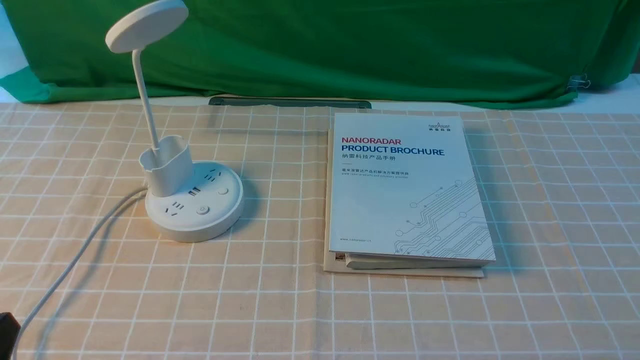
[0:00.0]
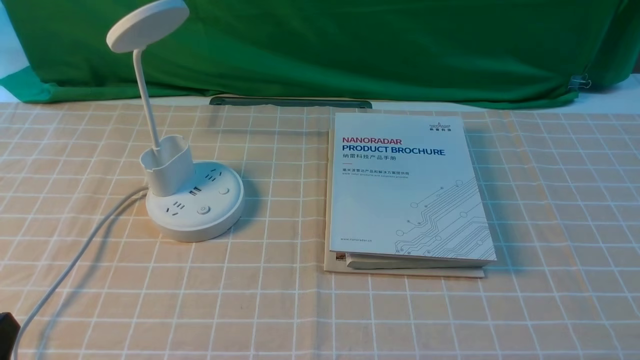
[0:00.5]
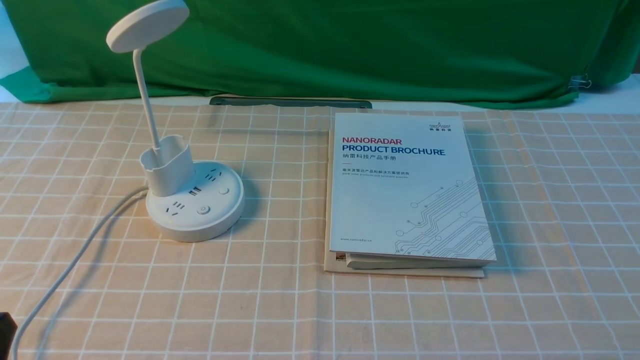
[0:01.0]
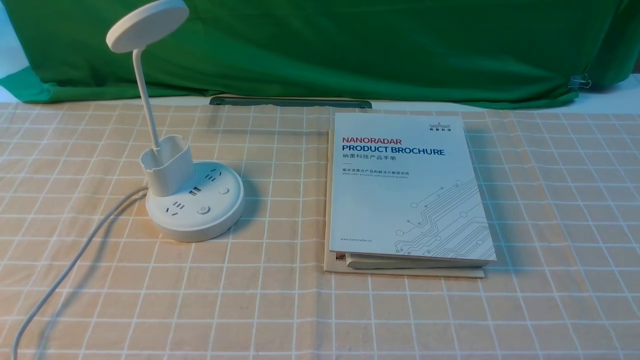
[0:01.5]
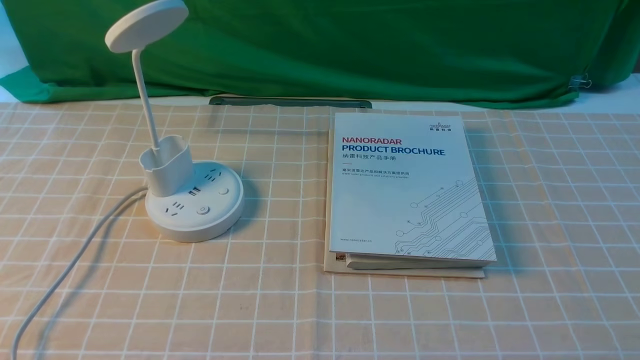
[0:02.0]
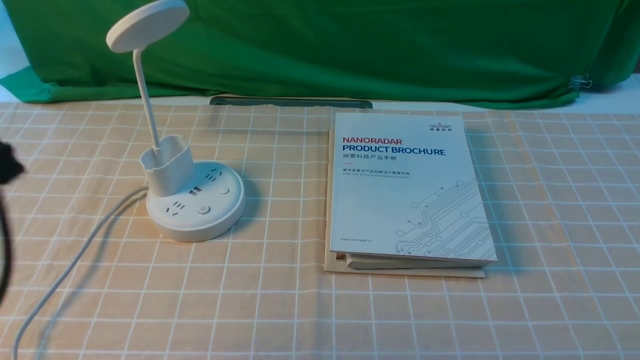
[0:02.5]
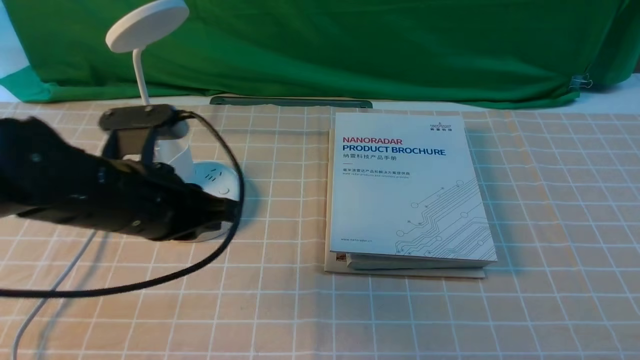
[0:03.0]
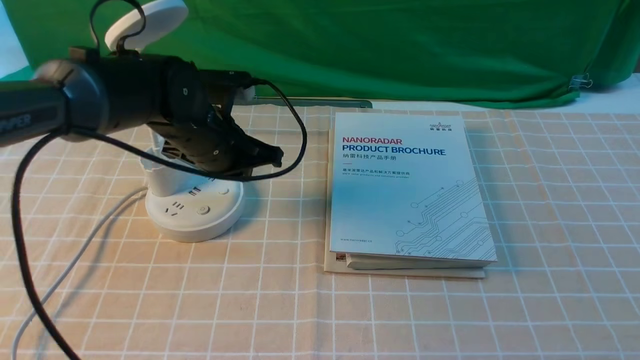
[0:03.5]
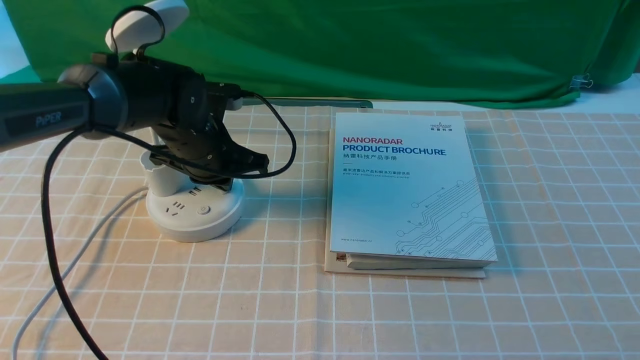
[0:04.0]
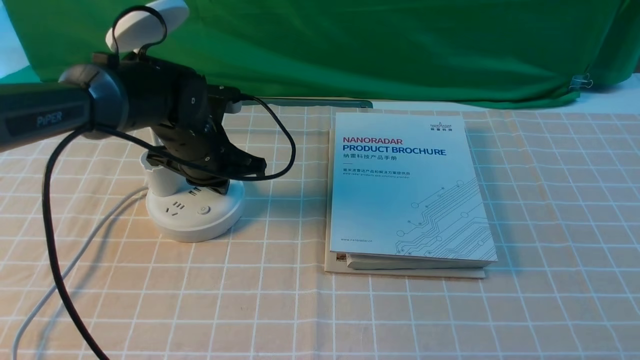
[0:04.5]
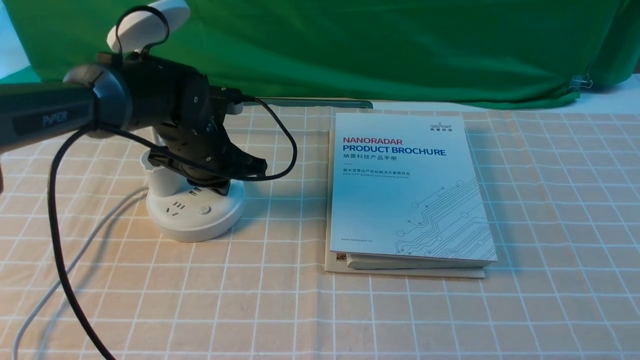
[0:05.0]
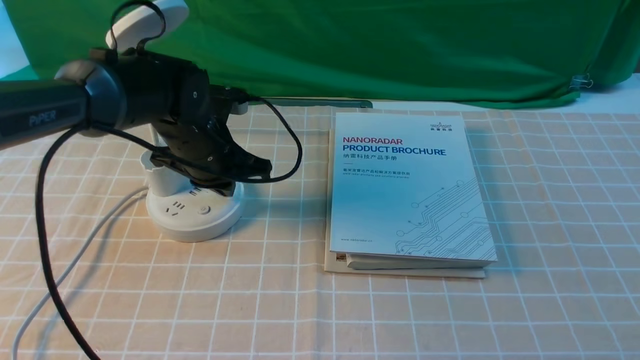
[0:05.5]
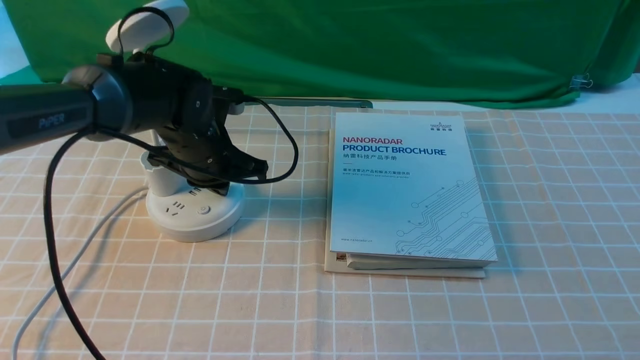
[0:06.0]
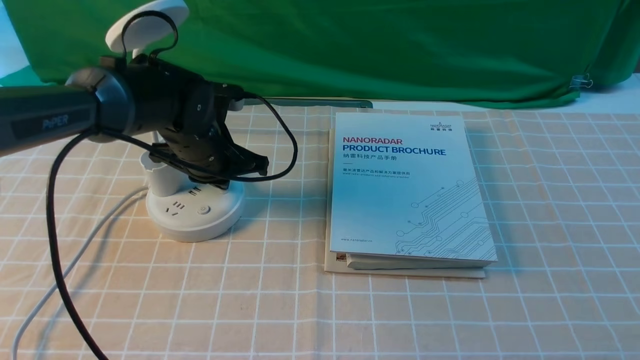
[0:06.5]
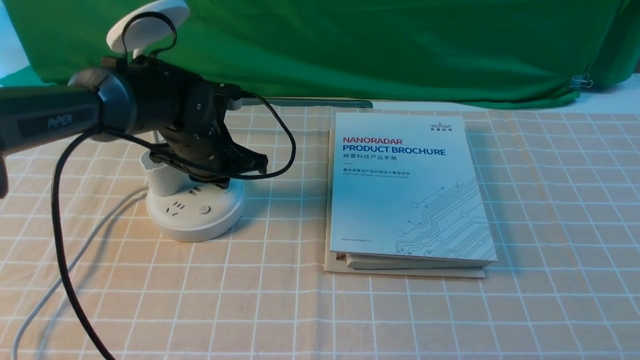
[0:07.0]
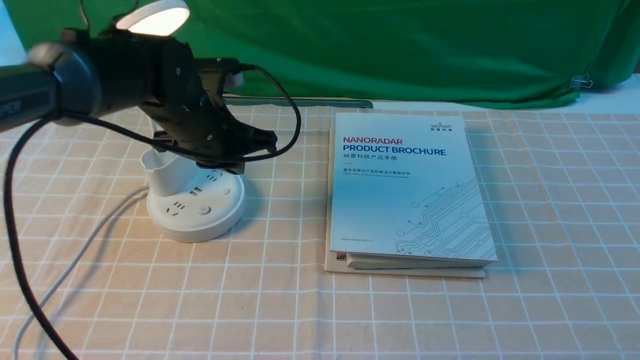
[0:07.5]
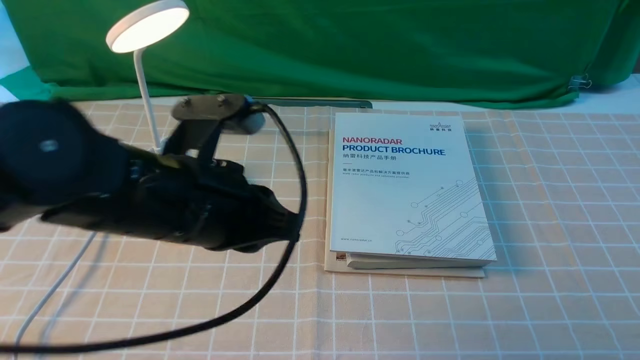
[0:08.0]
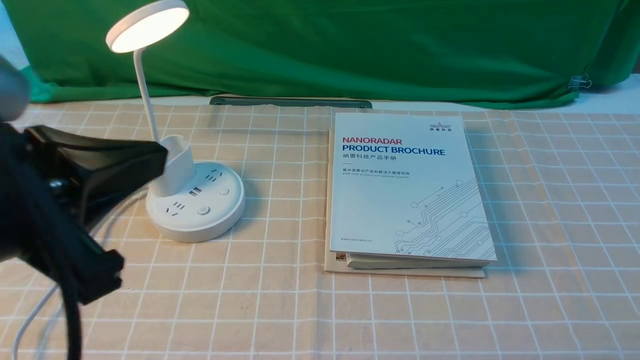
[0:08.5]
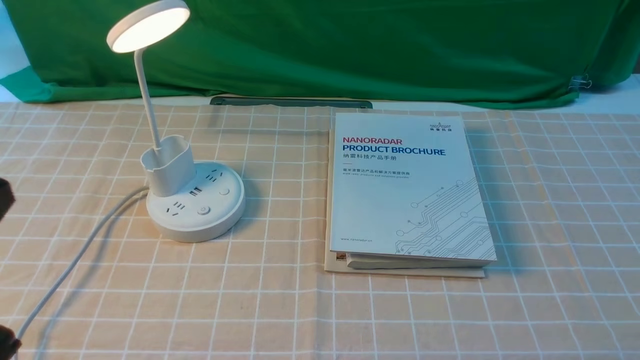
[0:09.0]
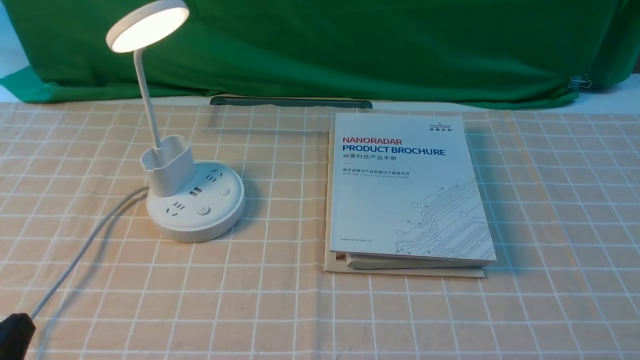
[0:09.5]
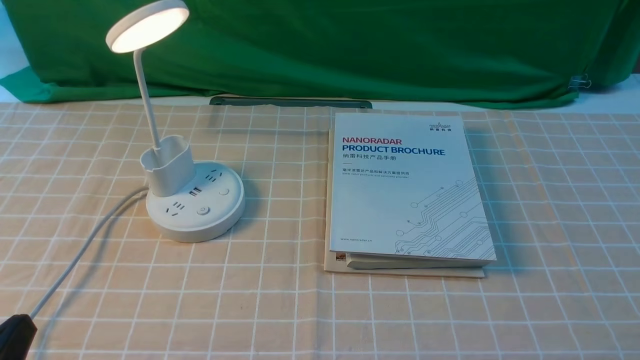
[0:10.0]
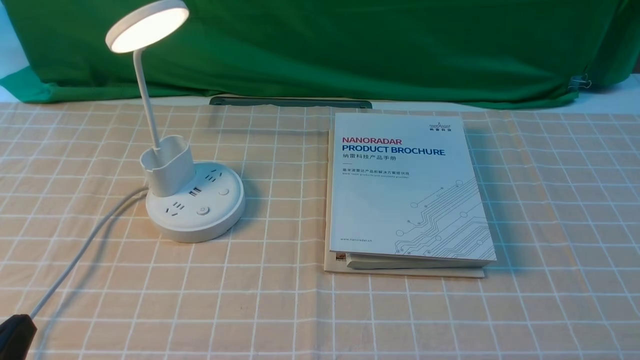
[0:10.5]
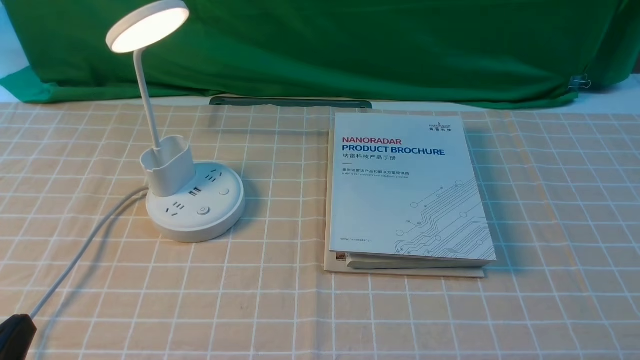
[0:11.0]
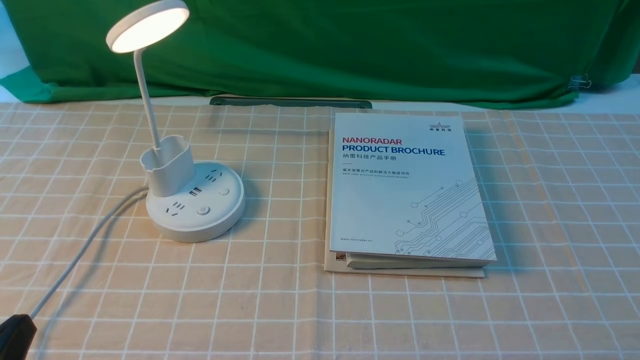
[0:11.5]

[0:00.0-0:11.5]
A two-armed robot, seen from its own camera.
Step, 0:00.0 to 0:08.0: use the left arm to press the button switch on the lamp holder.
0:02.0 to 0:04.0: The left gripper moves forward, some 40 cm, and closes its fingers.
0:04.0 to 0:07.5: The grippers move only a little.
0:07.5 to 0:09.5: The left gripper heads backward and to the left, covering some 35 cm.
0:09.5 to 0:11.5: The two grippers keep their place.

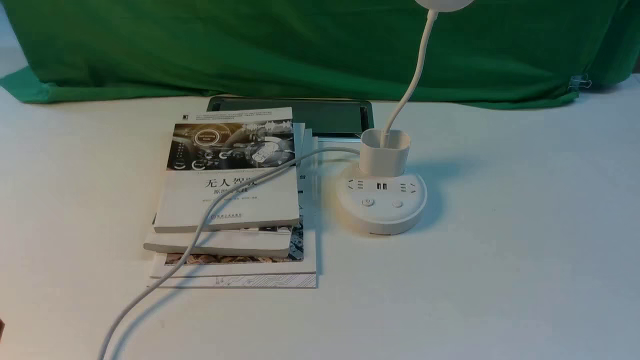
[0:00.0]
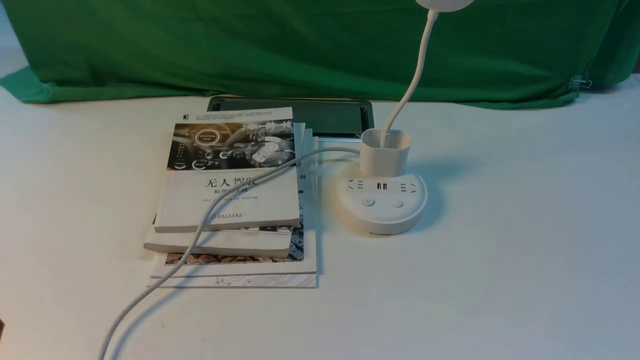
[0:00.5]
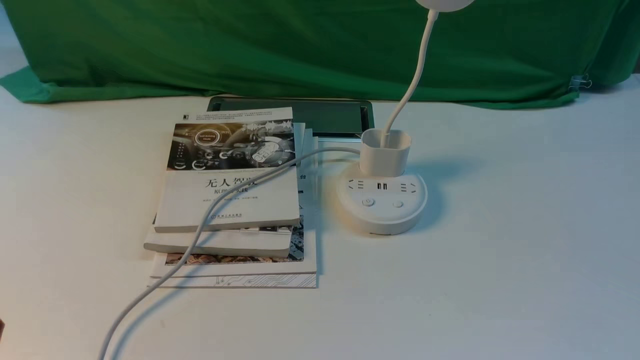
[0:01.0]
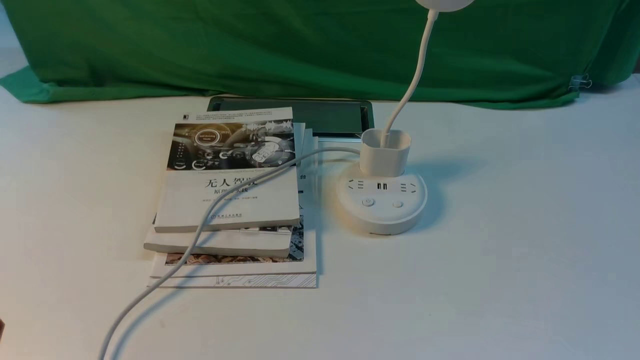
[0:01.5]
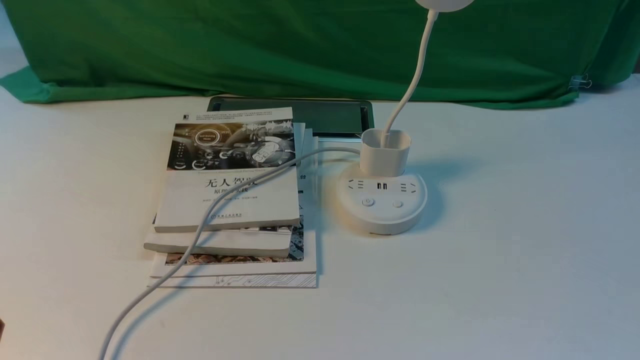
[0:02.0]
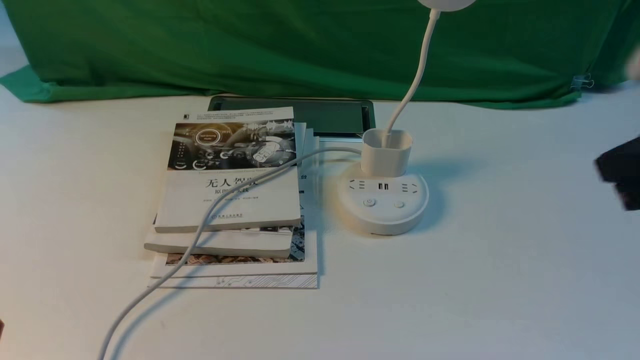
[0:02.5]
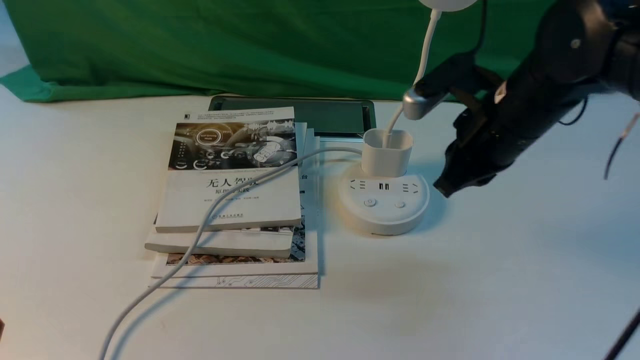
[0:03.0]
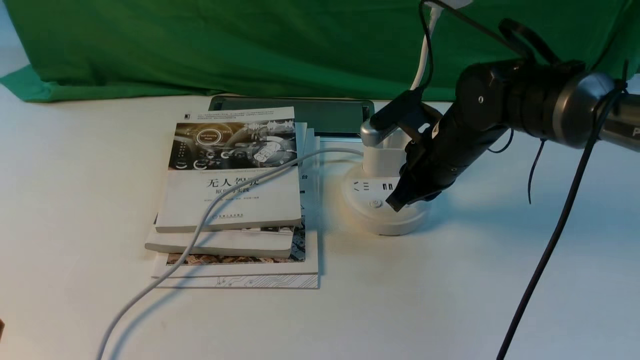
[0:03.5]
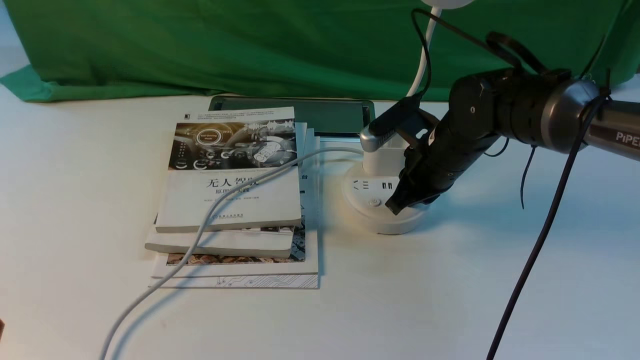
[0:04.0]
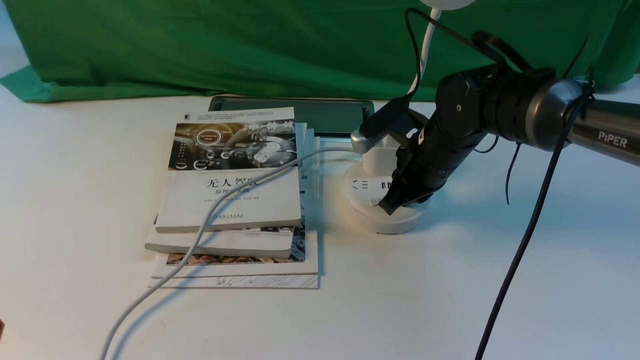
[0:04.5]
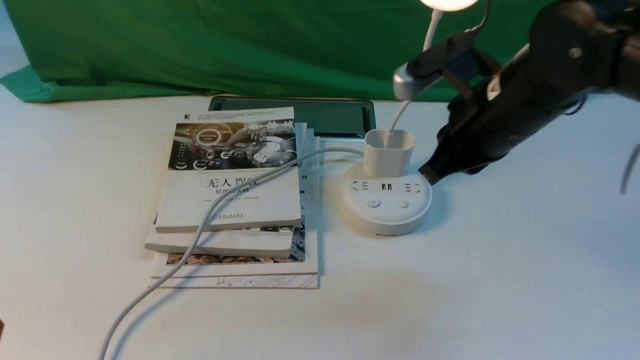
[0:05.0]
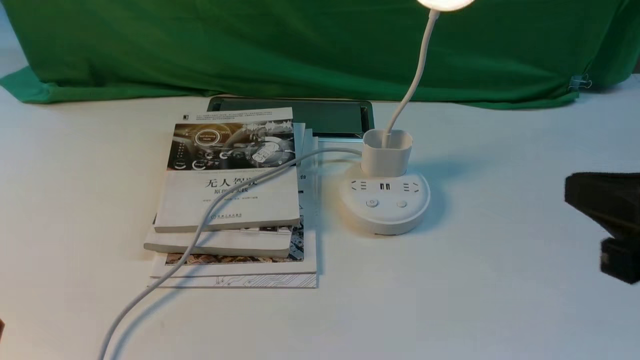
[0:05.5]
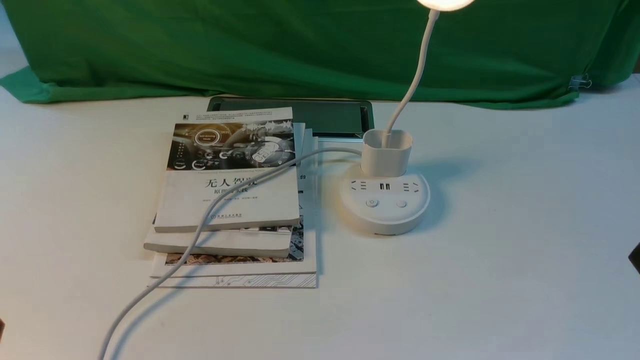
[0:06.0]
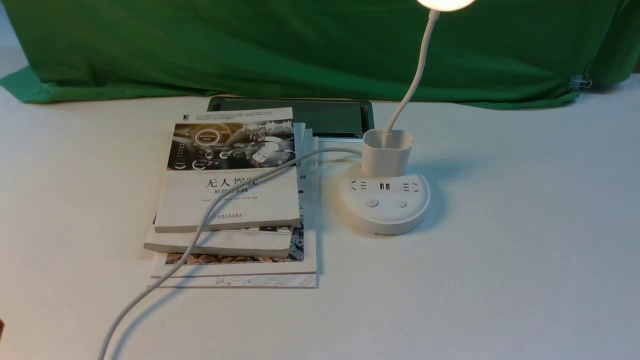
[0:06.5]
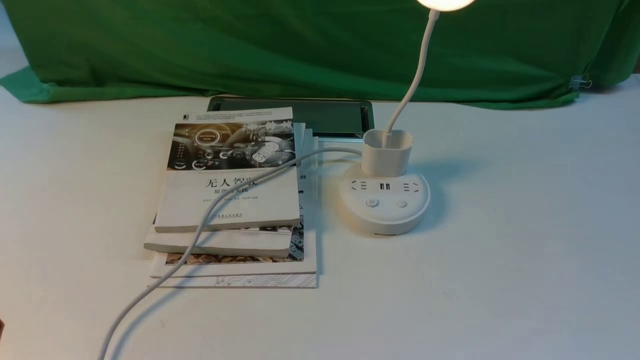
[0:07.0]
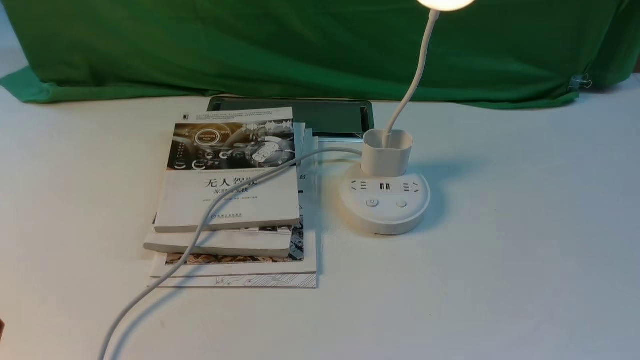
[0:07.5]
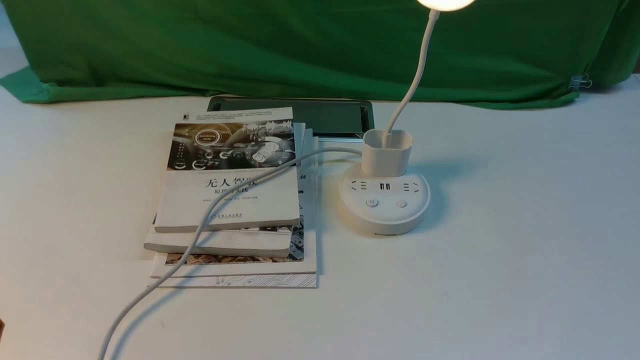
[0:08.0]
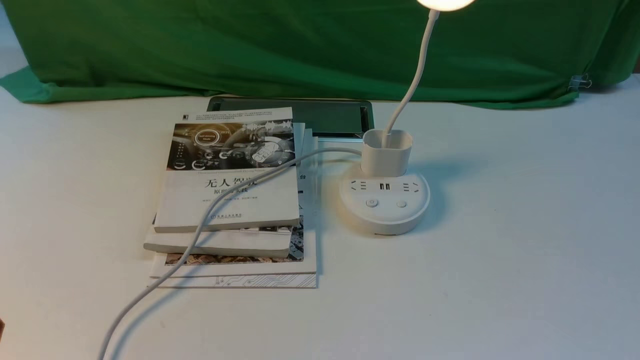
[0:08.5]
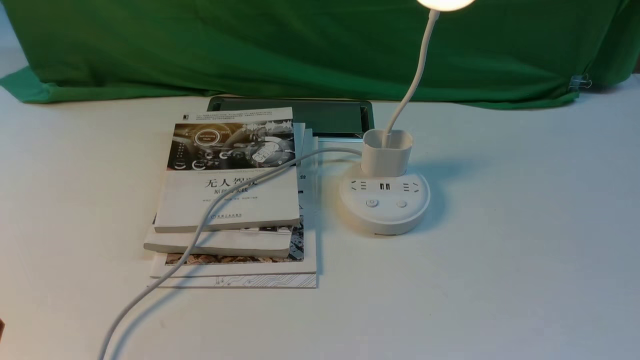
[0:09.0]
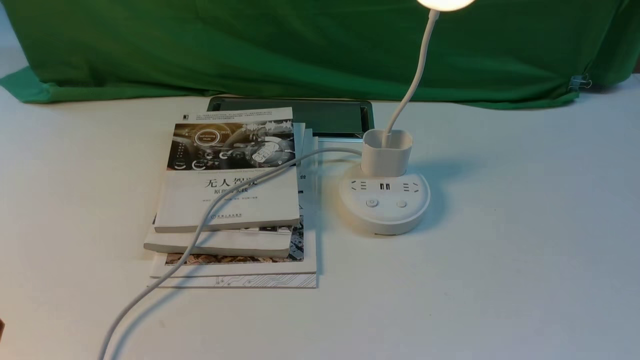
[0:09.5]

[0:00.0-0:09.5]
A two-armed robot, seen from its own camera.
Step, 0:00.0 to 0:05.0: use the right arm to press the button switch on the lamp holder.
0:02.0 to 0:04.0: The right gripper goes about 40 cm forward, to the left and downward.
0:04.0 to 0:05.5: The right gripper is displaced backward, upward and to the right by about 30 cm.
0:05.5 to 0:07.5: The right gripper shifts about 20 cm downward, backward and to the right, and opens.
0:07.5 to 0:09.5: Neither gripper changes place.
